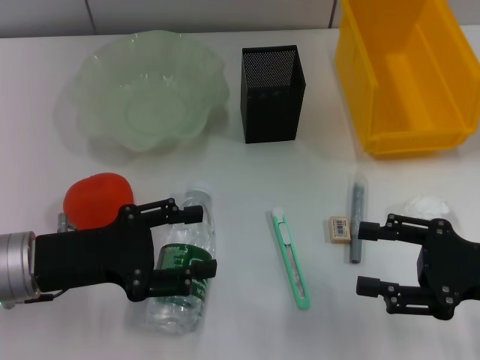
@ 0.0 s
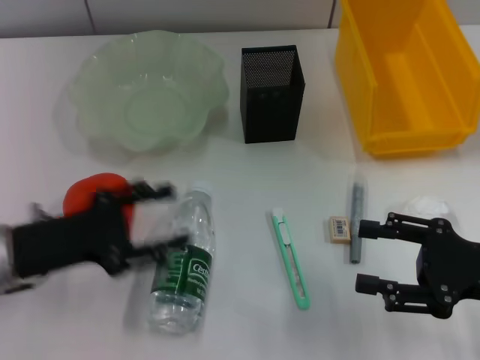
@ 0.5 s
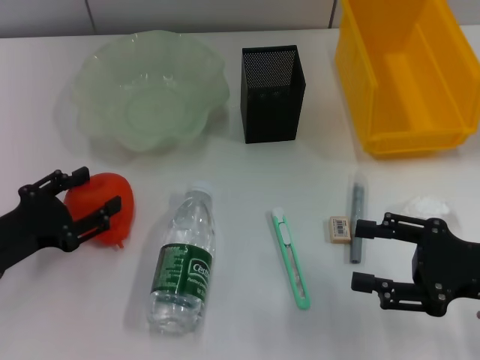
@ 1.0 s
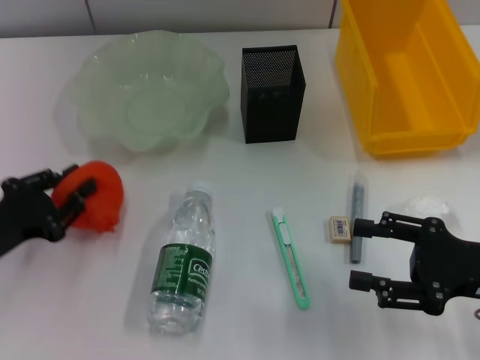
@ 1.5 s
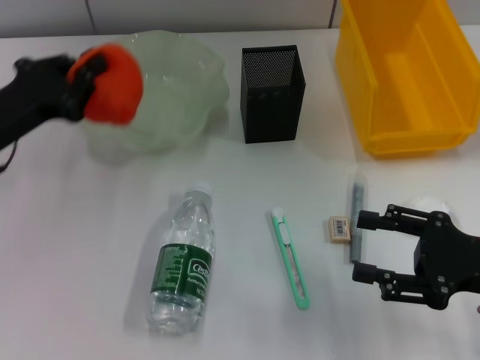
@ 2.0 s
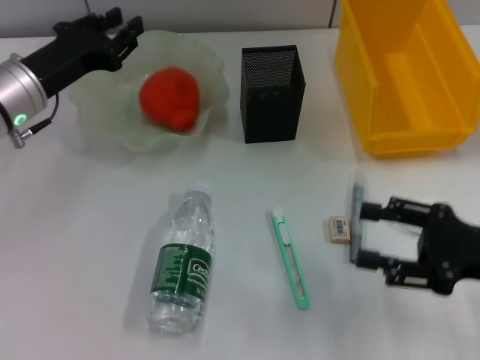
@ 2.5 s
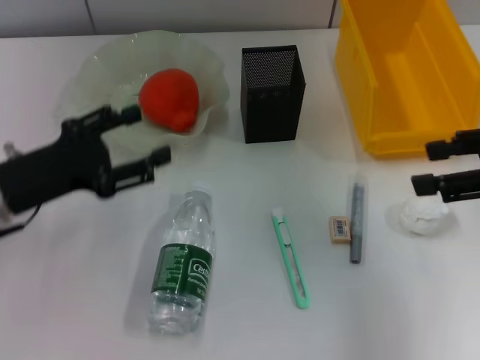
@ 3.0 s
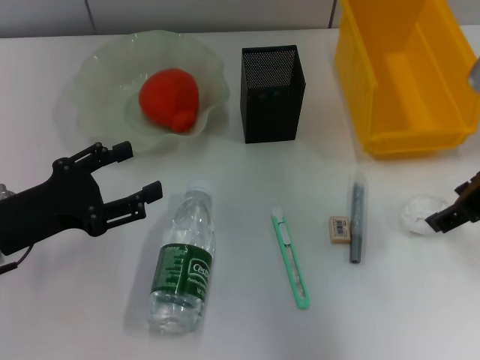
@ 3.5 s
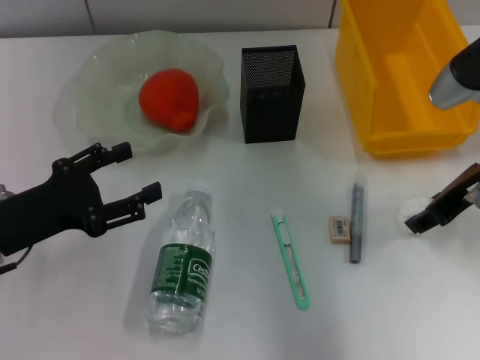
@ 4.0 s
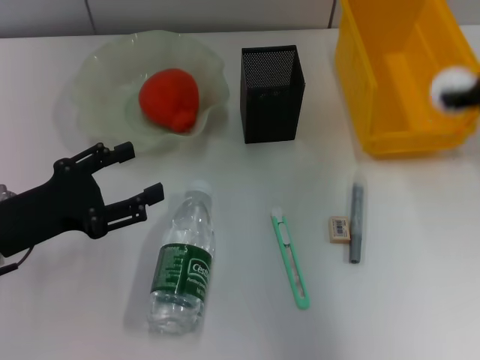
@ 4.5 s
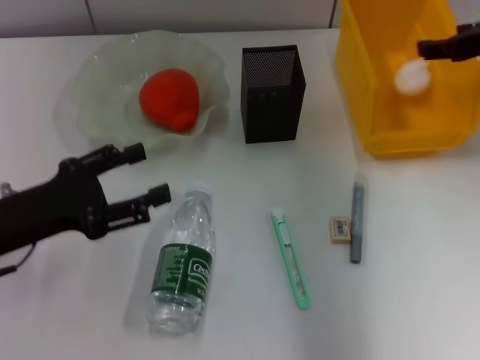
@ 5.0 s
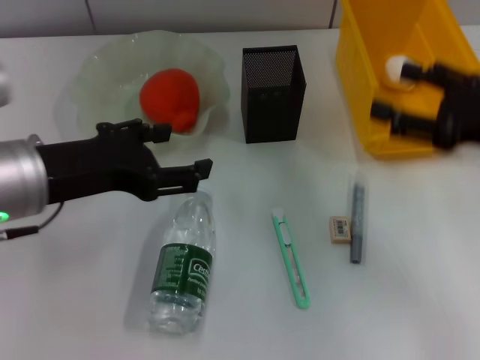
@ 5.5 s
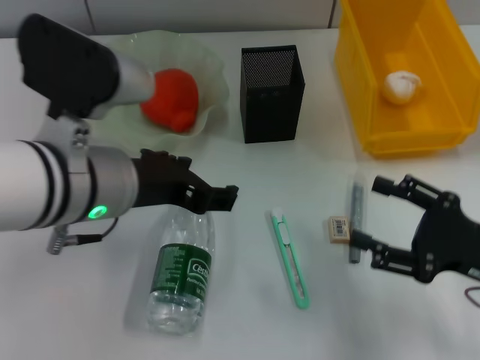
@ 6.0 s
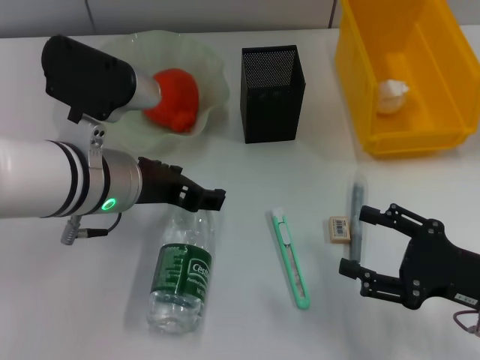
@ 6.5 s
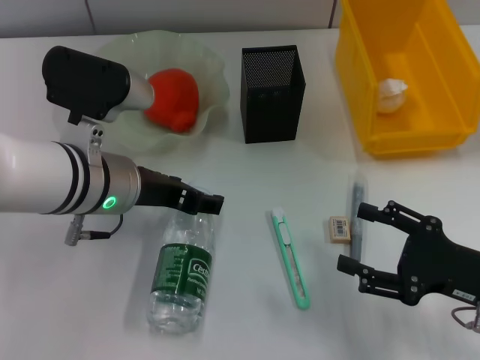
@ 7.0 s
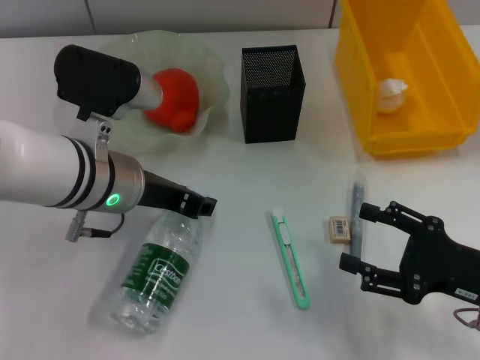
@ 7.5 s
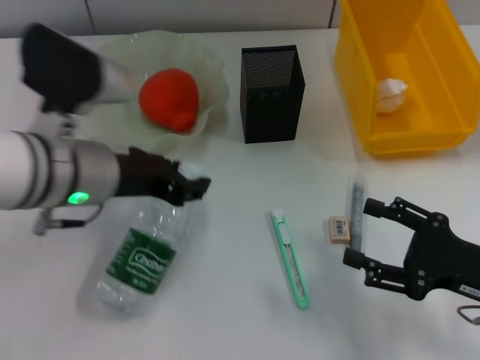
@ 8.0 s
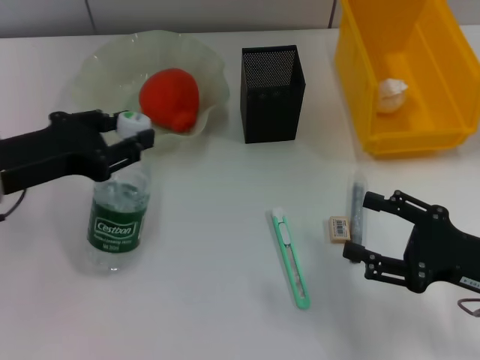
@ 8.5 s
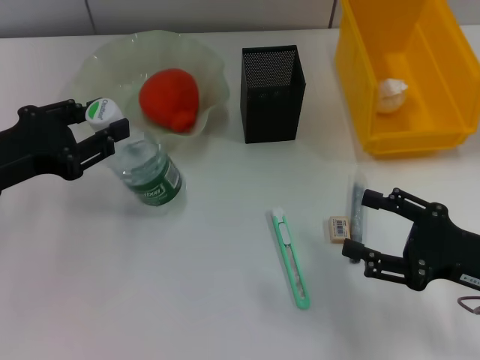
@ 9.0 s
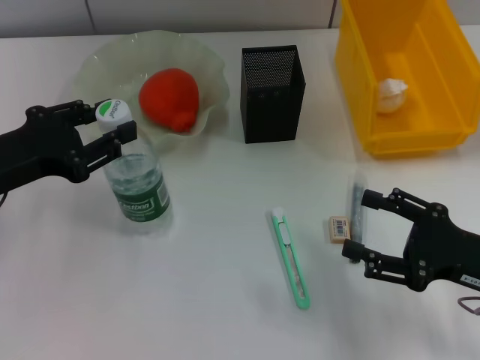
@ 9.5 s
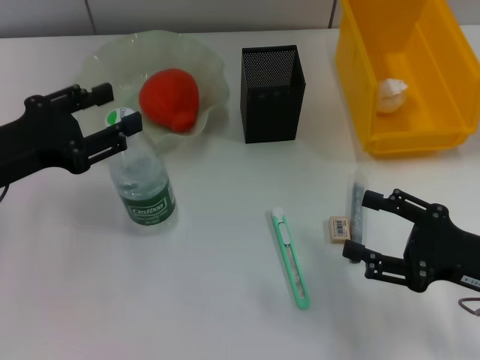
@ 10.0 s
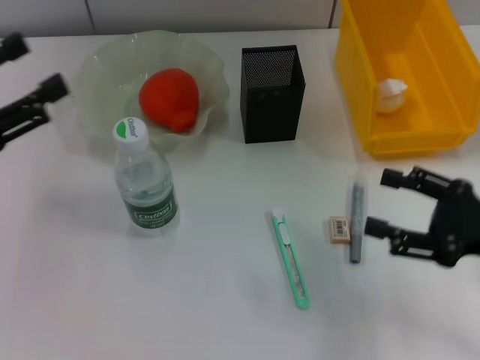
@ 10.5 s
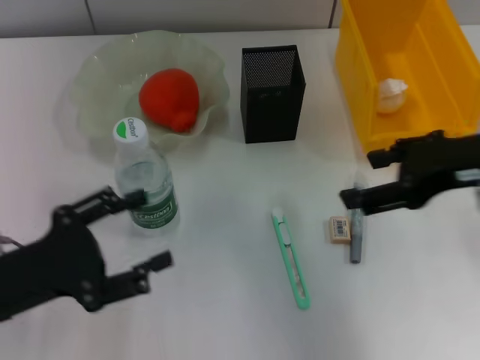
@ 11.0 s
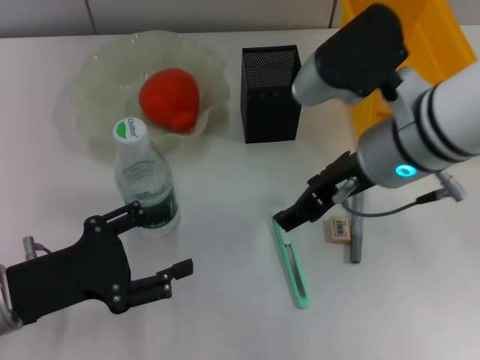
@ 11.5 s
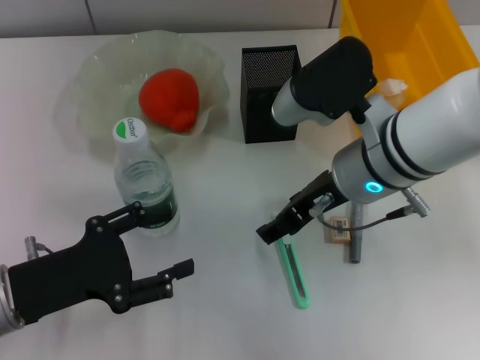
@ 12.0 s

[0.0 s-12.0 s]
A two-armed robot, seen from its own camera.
Step, 0.0 to 1.0 s: Grab the orange with the left hand.
Step, 1.5 to 2.0 s: Place the orange into the fruit bowl with the left hand.
Step, 2.5 to 4.0 s: Grab the paper ball with the right hand.
Step, 4.5 to 5.0 s: Place the paper ball into the trash can with the right hand.
Step, 5.5 to 7.0 s: Grab the water bottle with the left hand.
Step, 8.0 to 9.5 s: Place the water bottle on the table with the left hand.
0.0 to 2.0 s: The left gripper goes roughly 10 cm forward, and closes up.
2.0 to 4.0 s: The left gripper travels backward by some 5 cm, and opens up. Meanwhile the right gripper moves forward and upward, roughly 15 cm.
4.0 to 6.0 s: The left gripper is displaced to the right and upward by some 20 cm; the right gripper is displaced backward and downward by approximately 15 cm, and closes and opens again.
6.0 to 8.0 s: The left gripper closes its fingers.
8.0 to 10.0 s: The left gripper travels to the left by some 10 cm.
10.0 to 12.0 s: The left gripper heads downward and backward, covering approximately 10 cm. The right gripper goes roughly 20 cm to the left, forward and upward.

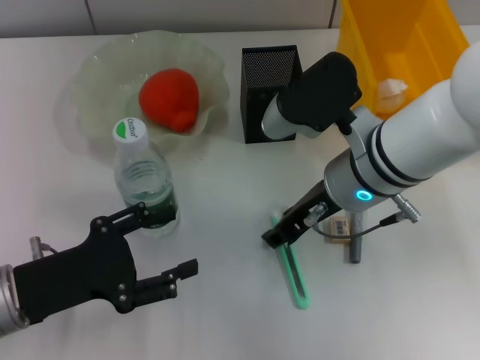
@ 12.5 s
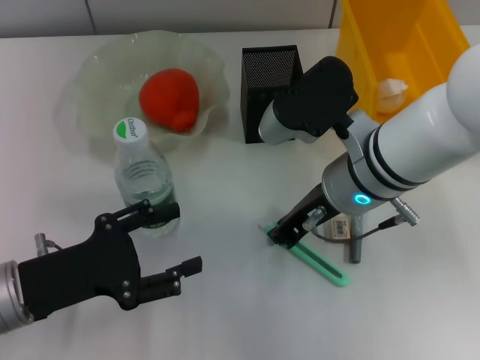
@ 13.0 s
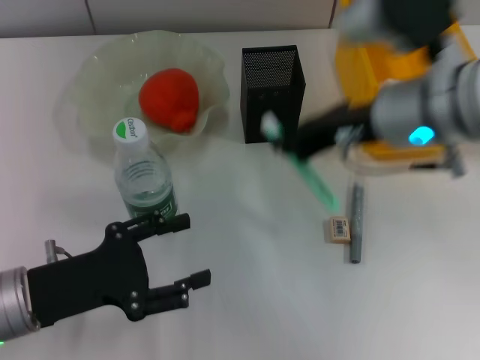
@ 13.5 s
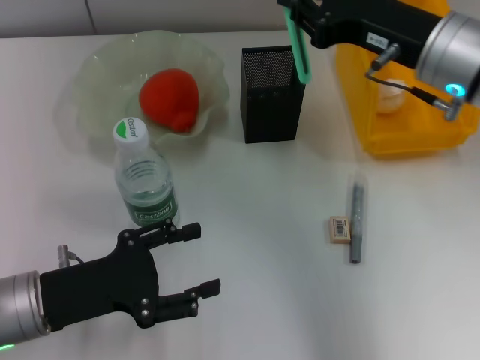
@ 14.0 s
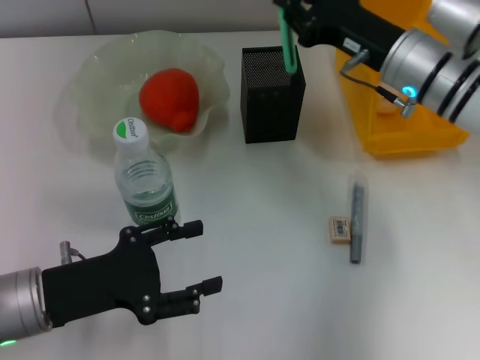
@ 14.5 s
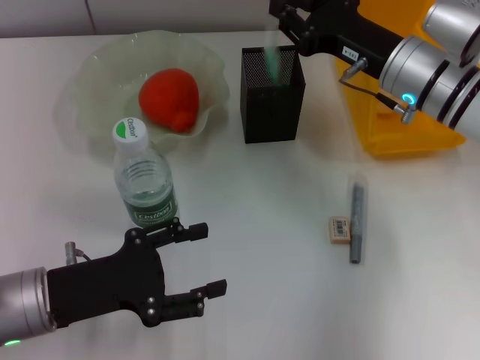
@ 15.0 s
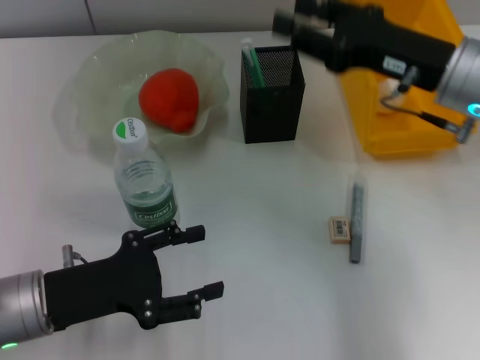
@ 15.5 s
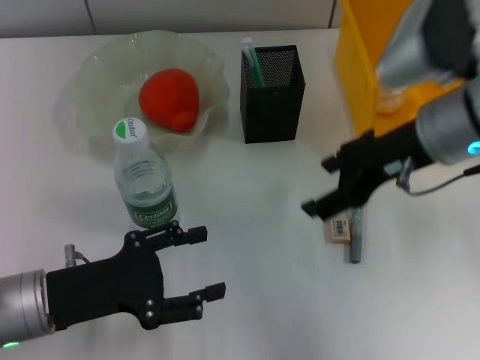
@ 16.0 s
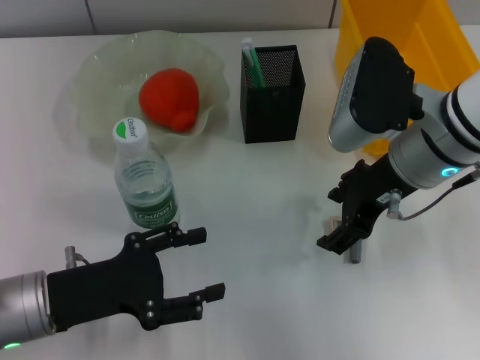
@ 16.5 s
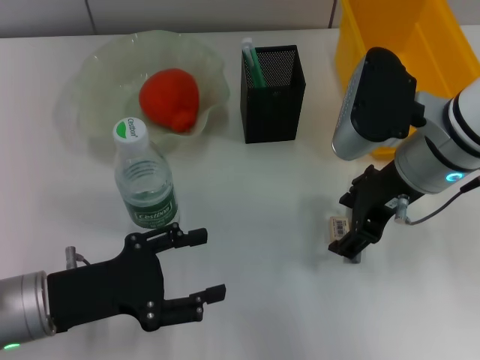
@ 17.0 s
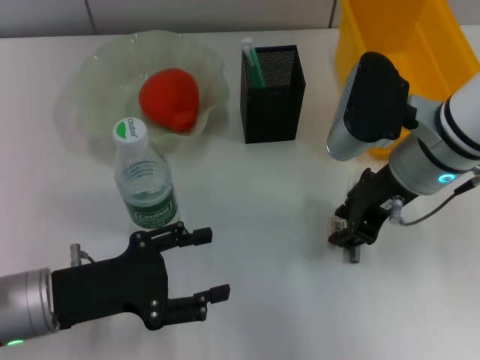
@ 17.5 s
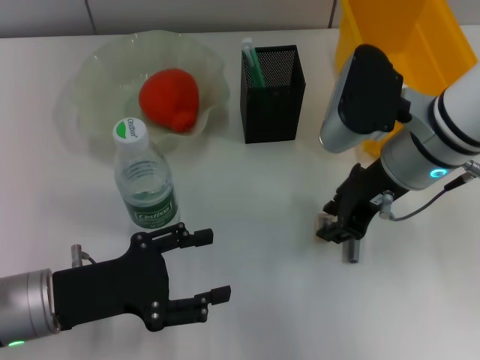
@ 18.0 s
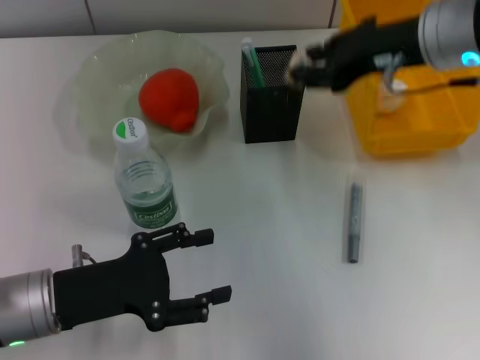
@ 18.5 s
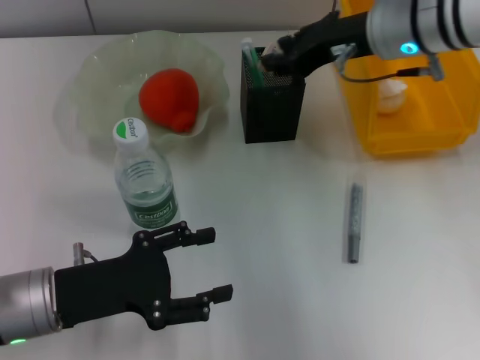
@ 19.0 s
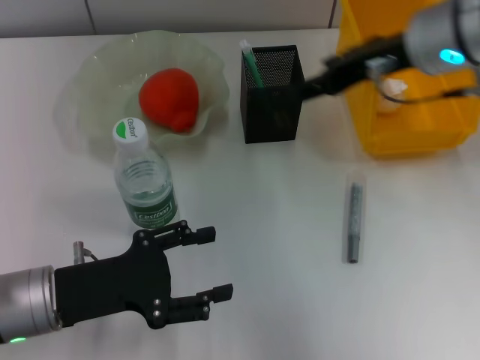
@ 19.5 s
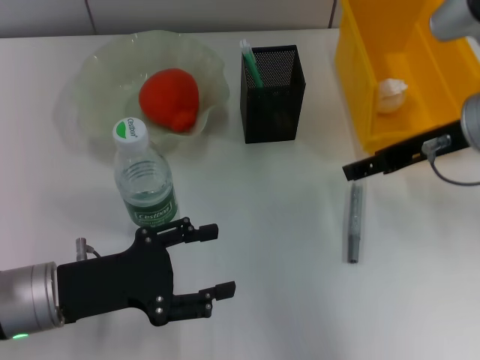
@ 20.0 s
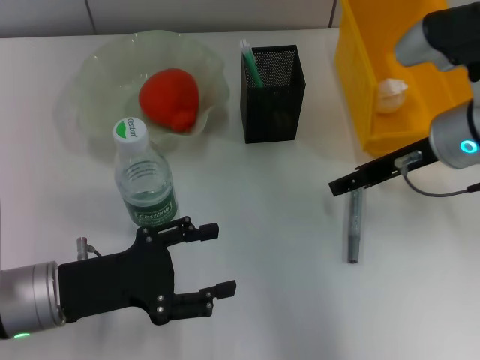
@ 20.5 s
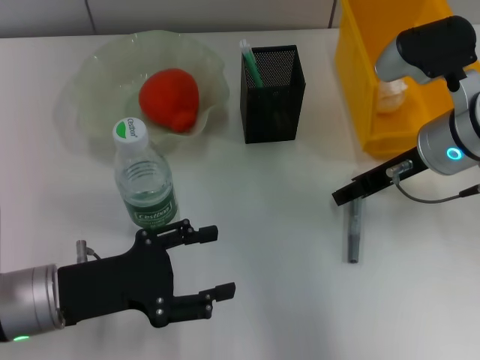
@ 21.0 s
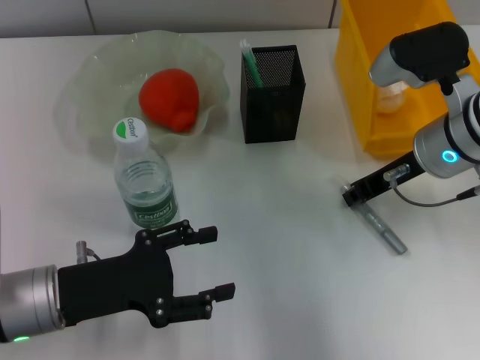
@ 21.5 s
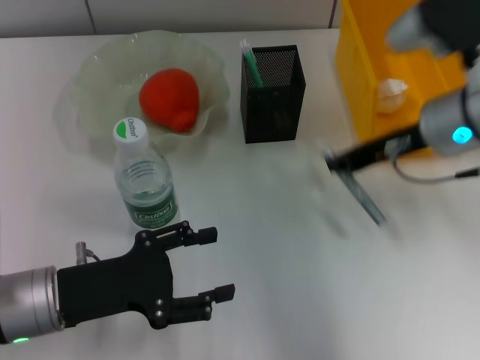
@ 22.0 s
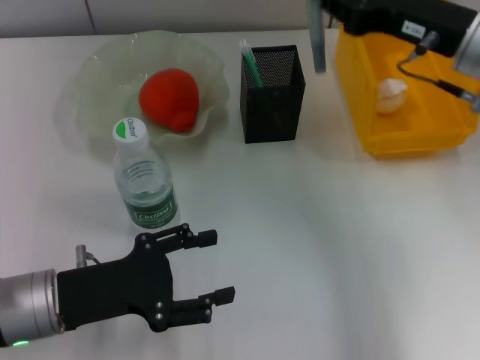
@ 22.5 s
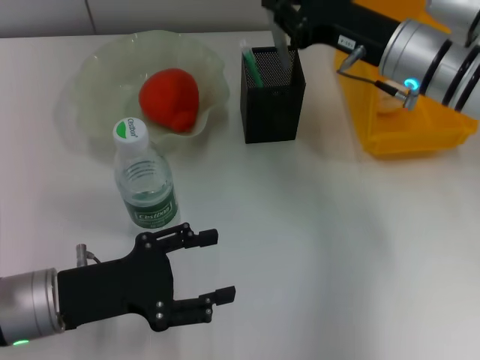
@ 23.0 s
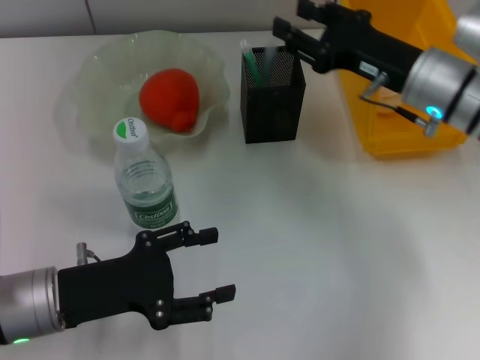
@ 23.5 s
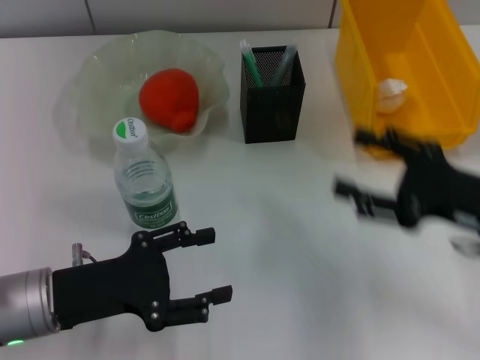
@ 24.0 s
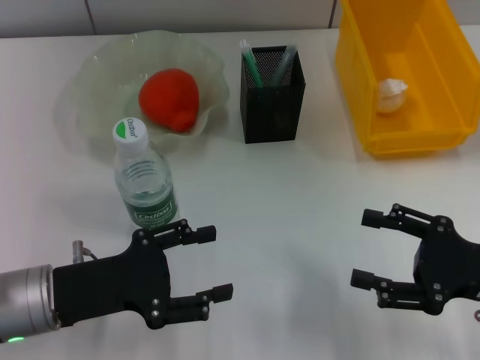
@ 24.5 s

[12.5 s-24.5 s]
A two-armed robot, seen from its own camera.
Step, 13.5 to 15.0 s: Place the blue utility knife into the pen holder with the right hand.
Step, 15.5 to 17.0 s: Grab the eraser with the right hand.
Step, 17.5 to 19.0 s: Put the eraser into the pen holder with the right hand.
Step, 19.5 to 21.5 s: Grab the gray glue with the right hand.
Step, 22.0 to 23.0 s: Place the gray glue into the pen holder with the right hand.
12.5 to 14.5 s: The right gripper moves to the right and forward, about 10 cm, and closes.
14.5 to 16.5 s: The right gripper travels backward by approximately 5 cm, and opens.
16.5 to 18.5 s: The right gripper shifts roughly 5 cm upward, and closes its fingers.
18.5 to 20.5 s: The right gripper heads downward, covering approximately 10 cm, and opens.
20.5 to 22.5 s: The right gripper closes up.
22.5 to 24.5 s: The right gripper shifts approximately 20 cm backward, downward and to the right, and opens its fingers.

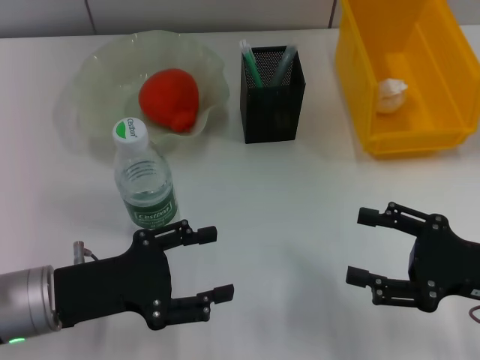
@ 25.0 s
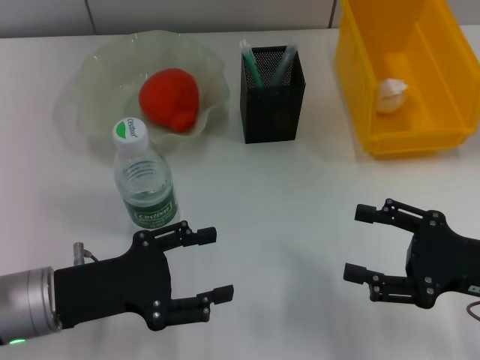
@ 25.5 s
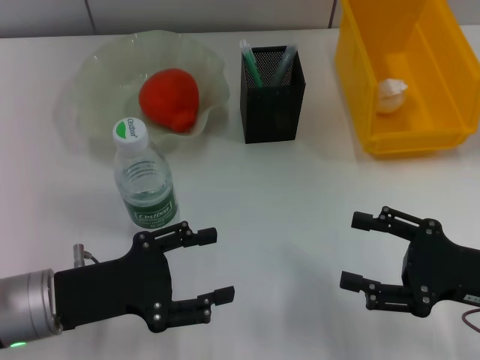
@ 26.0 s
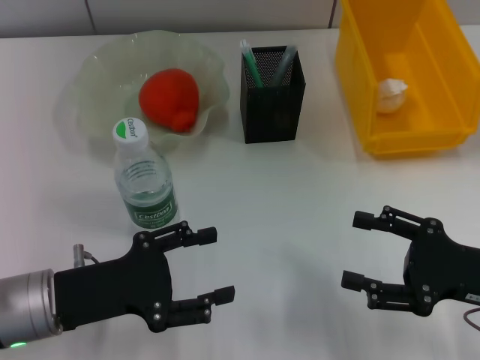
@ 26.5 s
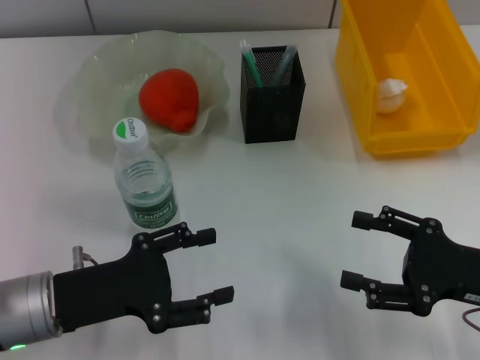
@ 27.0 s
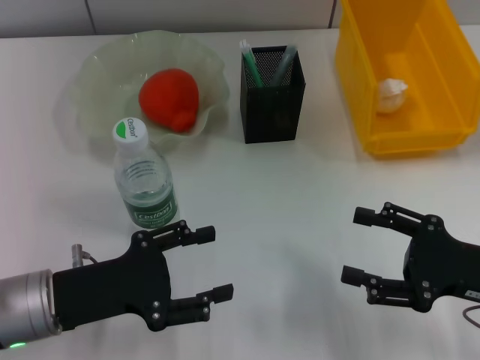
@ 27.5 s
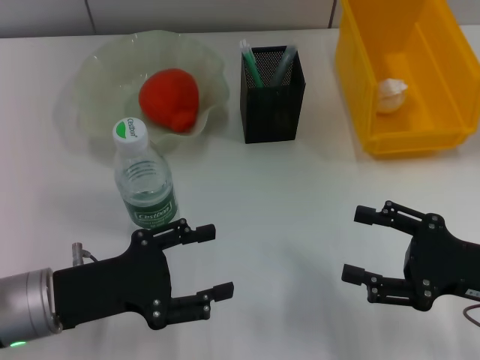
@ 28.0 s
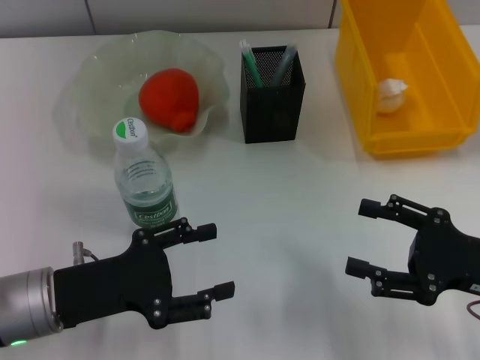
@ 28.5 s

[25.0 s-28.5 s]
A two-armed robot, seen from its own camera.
25.0 to 28.5 s: Both grippers stay about where they are.
